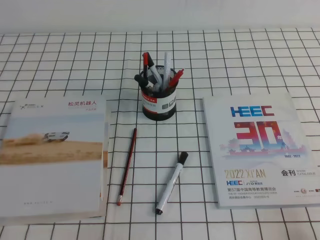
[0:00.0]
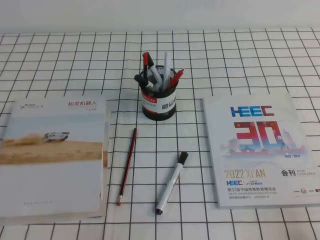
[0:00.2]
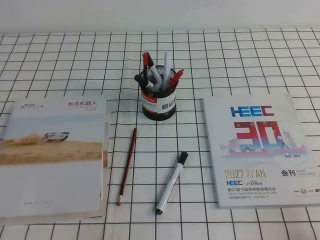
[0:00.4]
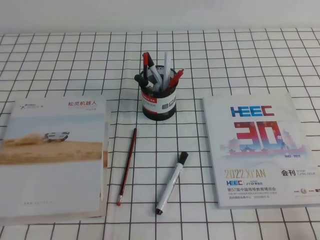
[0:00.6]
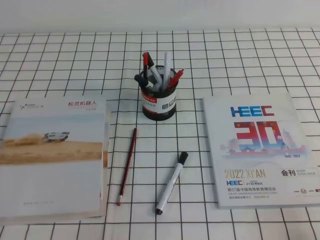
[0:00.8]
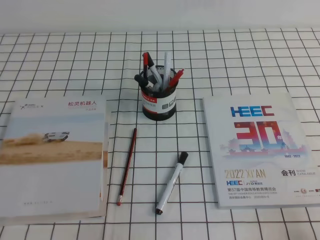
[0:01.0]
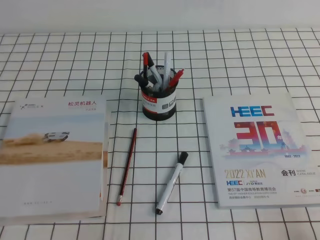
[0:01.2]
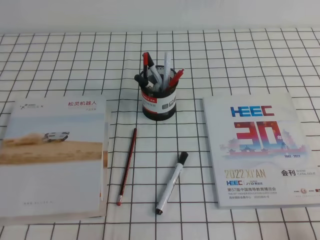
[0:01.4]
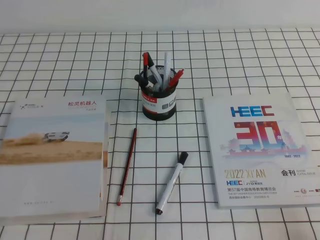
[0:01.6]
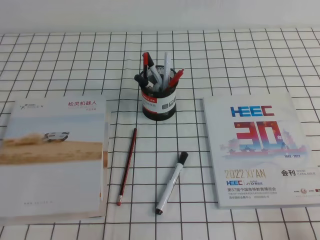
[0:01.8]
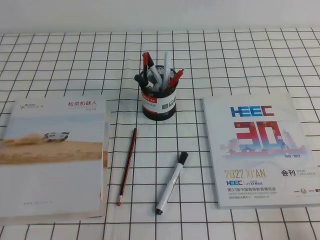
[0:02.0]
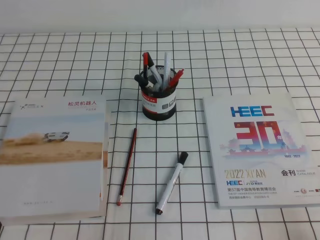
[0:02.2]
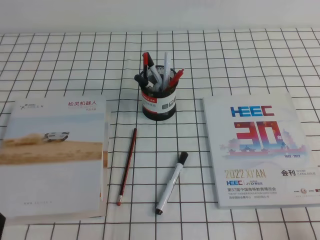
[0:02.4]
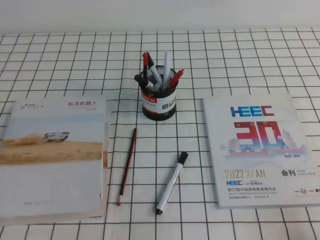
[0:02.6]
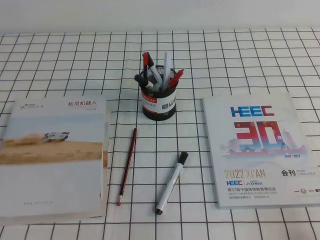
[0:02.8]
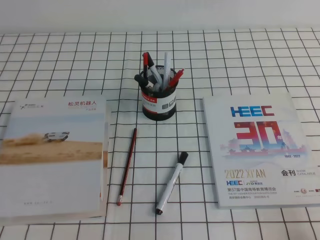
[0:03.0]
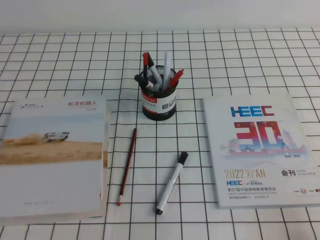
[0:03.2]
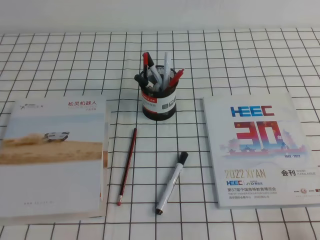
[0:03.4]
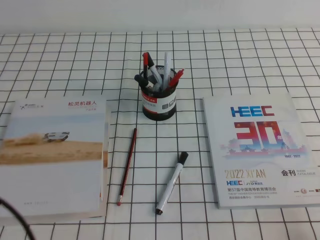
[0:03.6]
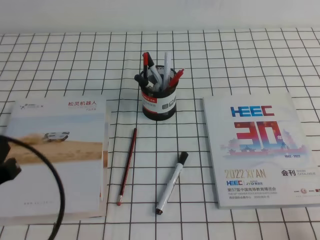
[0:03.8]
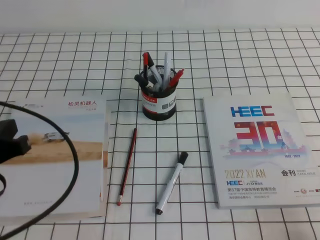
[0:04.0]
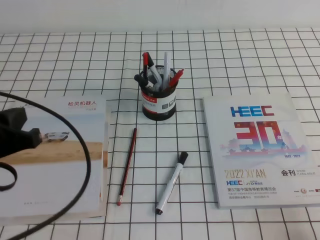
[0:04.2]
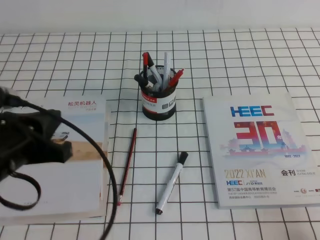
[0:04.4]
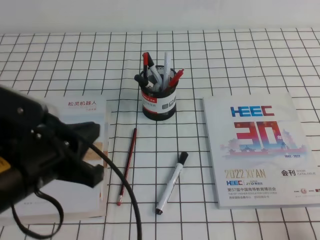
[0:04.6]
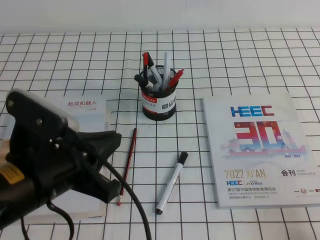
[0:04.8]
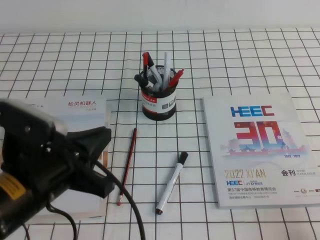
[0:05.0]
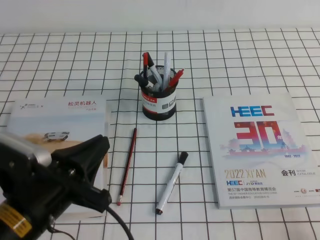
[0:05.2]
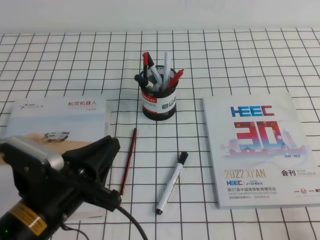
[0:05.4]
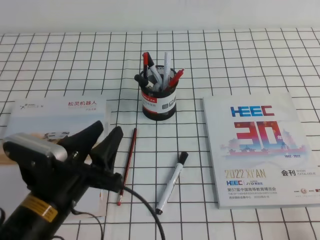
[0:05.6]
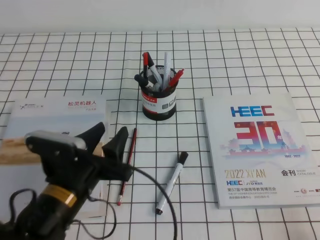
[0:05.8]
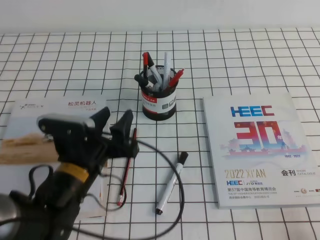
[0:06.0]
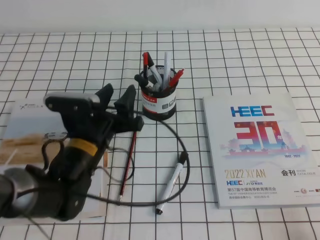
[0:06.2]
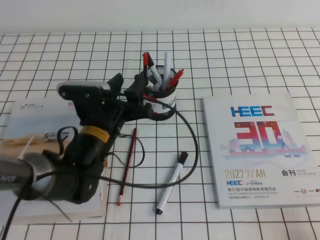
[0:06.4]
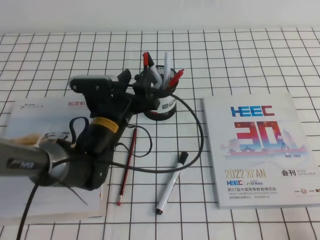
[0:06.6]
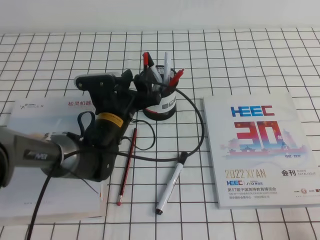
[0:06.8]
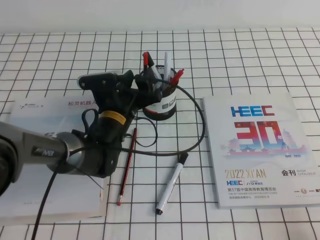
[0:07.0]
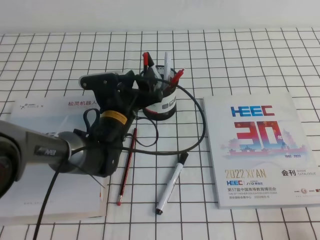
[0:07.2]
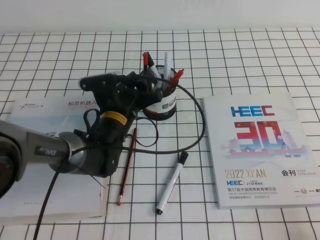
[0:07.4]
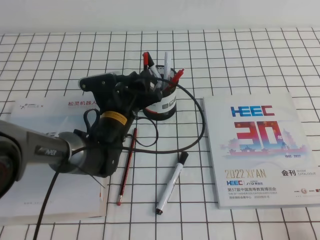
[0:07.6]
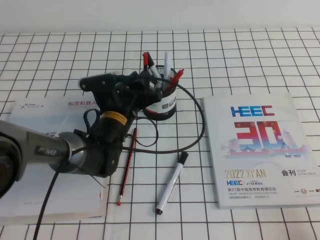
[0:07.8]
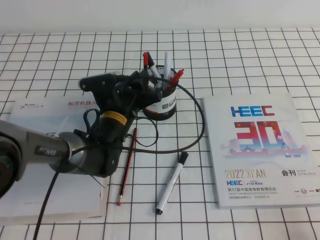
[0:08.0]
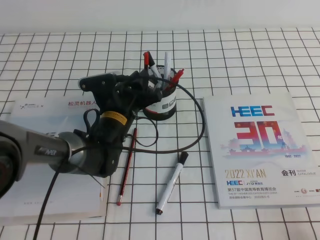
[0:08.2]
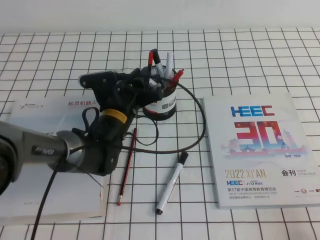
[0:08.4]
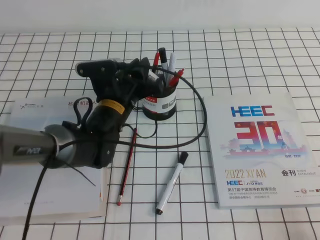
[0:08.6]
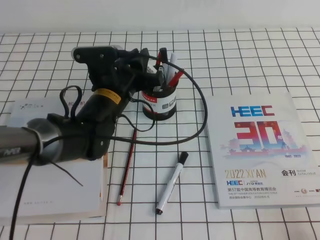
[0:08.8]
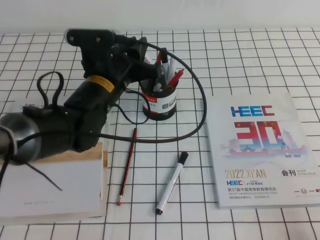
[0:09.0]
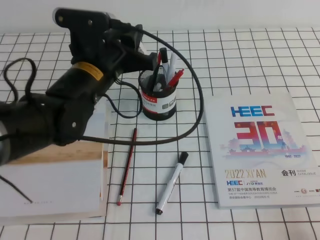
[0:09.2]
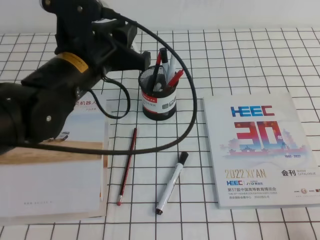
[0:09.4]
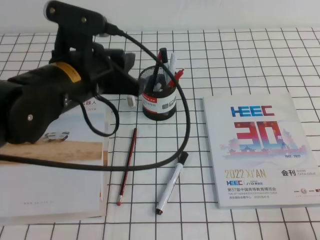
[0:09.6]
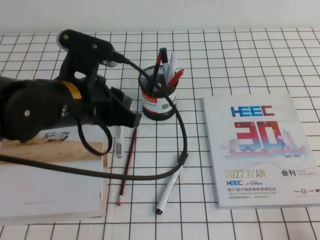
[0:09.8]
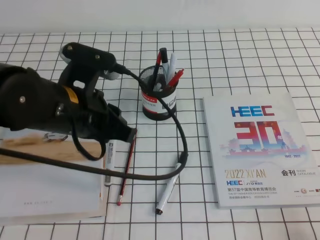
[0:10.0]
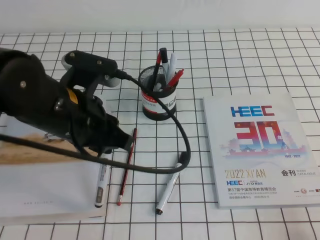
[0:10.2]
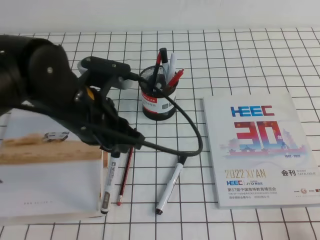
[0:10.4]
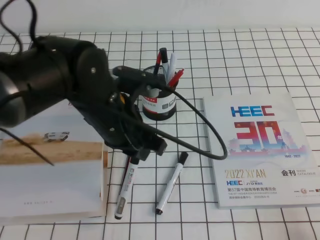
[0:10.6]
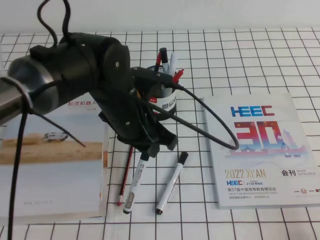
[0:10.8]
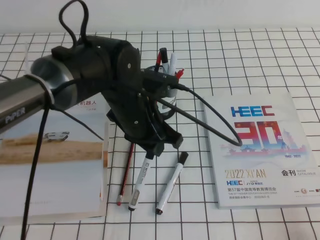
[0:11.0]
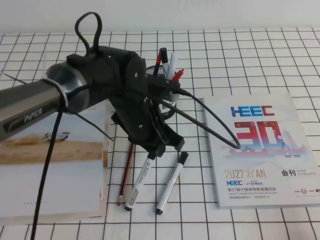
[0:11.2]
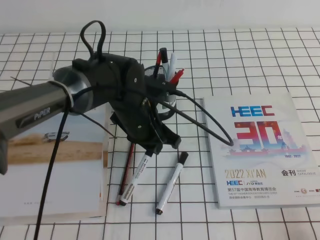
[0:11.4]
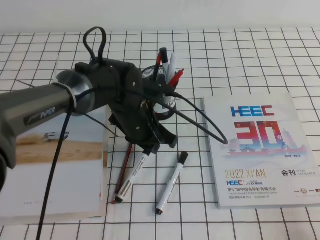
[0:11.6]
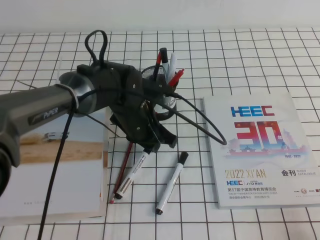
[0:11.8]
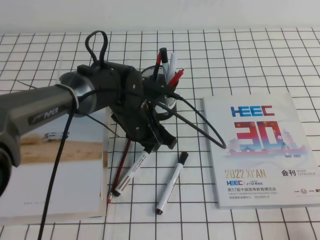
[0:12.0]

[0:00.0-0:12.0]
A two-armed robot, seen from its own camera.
0:00.0 to 0:01.6: The two grippers keep their place.
0:03.0 to 0:04.4: The left gripper shifts roughly 15 cm forward, upward and to the right.
0:04.4 to 0:06.0: The left gripper moves downward and to the right, about 15 cm, and opens its fingers.
0:06.0 to 0:07.6: The left gripper heads forward and to the right, covering approximately 15 cm.
0:07.6 to 0:09.0: The left gripper travels upward by about 10 cm, and closes.
0:09.0 to 0:10.4: The left gripper travels backward by approximately 10 cm.
0:10.4 to 0:12.0: The left gripper goes about 15 cm downward, forward and to the right.

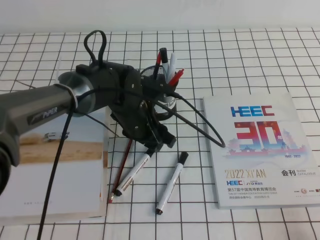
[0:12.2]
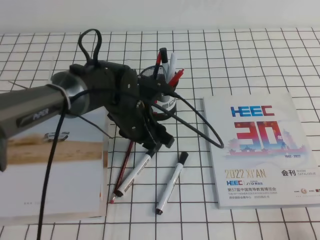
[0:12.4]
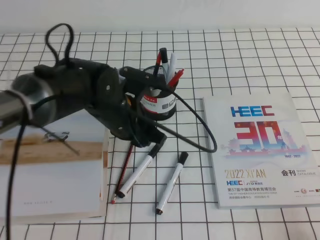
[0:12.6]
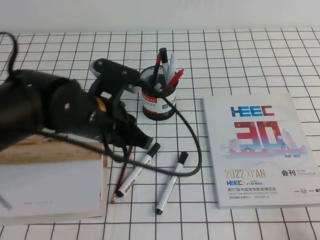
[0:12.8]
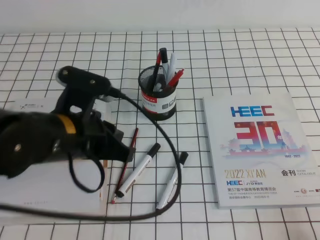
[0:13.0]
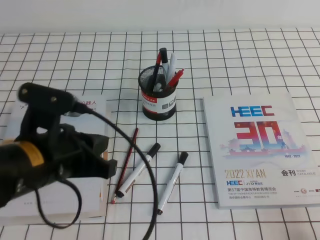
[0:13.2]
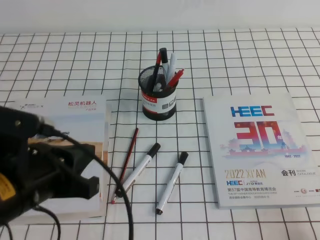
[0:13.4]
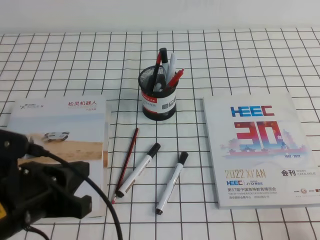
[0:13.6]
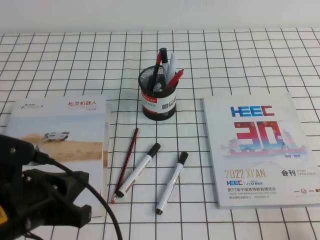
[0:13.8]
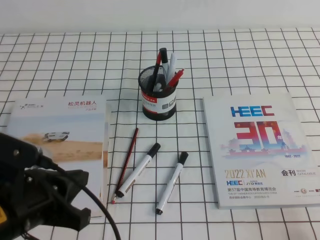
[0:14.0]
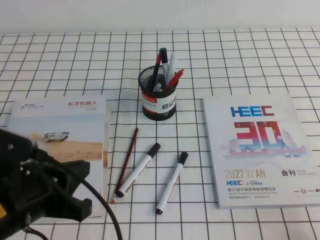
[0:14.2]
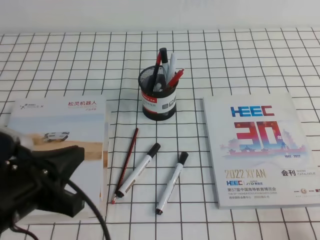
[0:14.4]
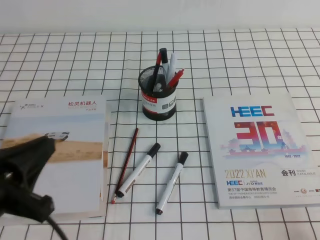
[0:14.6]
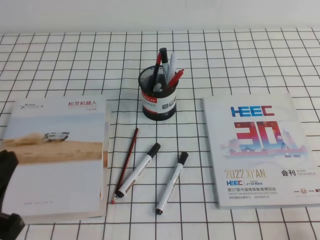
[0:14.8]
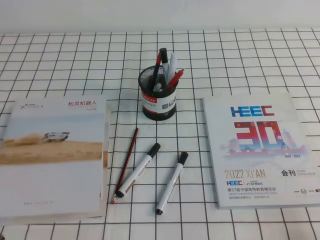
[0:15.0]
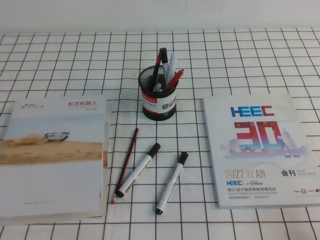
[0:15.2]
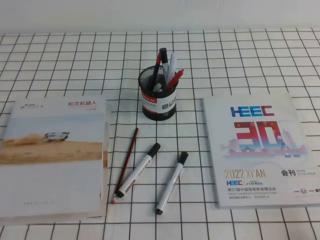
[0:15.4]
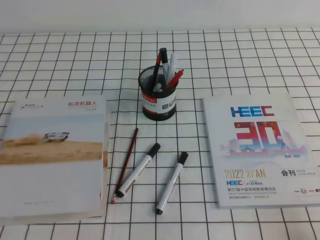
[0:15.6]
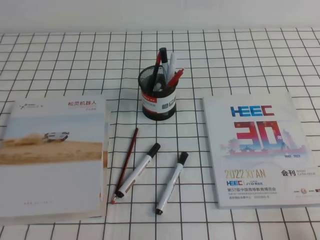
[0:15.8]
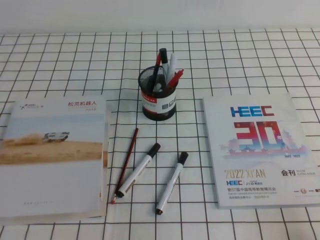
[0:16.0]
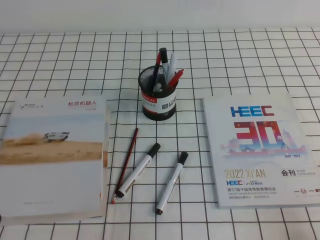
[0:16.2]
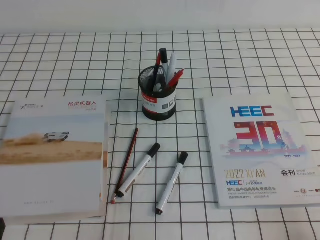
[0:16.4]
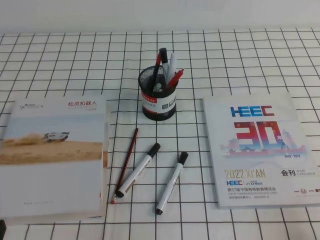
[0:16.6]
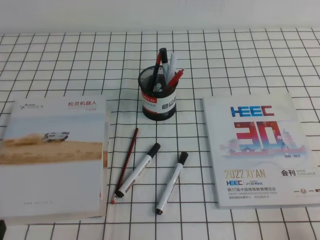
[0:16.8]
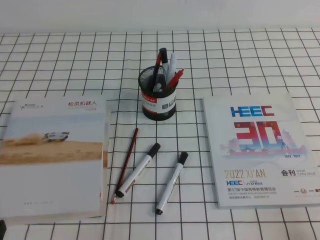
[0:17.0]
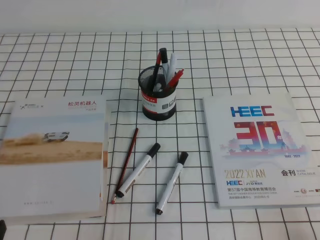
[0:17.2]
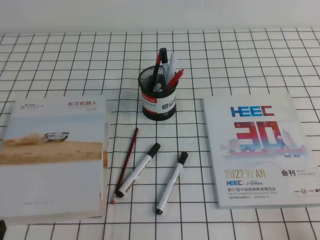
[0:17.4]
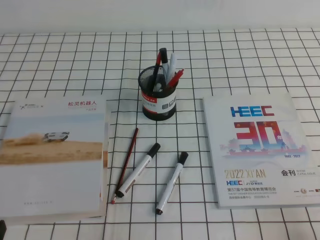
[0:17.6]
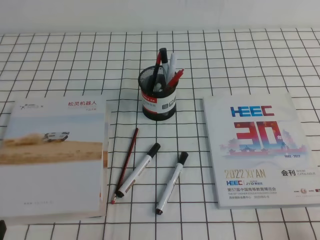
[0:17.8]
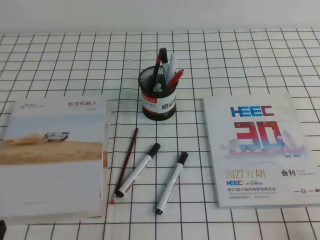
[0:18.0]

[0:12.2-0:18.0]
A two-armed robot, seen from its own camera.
Step, 0:12.2 to 0:18.0: Pick up the pen from the pen holder.
0:12.2 to 0:13.6: The left gripper travels backward and to the left by about 25 cm, and closes.
0:13.6 to 0:15.0: The left gripper is displaced to the left and backward by approximately 10 cm.
0:15.0 to 0:16.6: The left gripper moves downward, about 10 cm.
0:16.6 to 0:18.0: Both grippers stay put.
